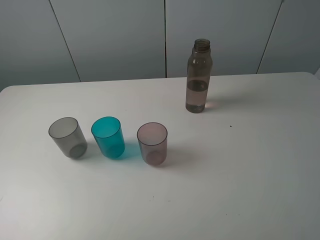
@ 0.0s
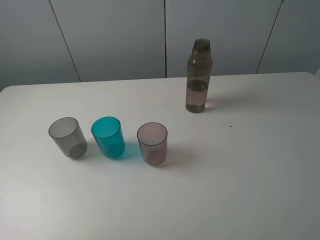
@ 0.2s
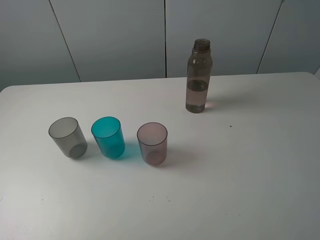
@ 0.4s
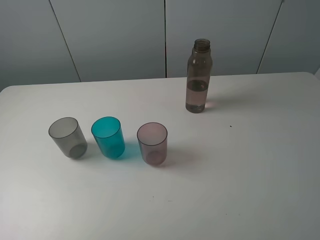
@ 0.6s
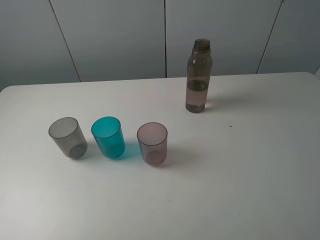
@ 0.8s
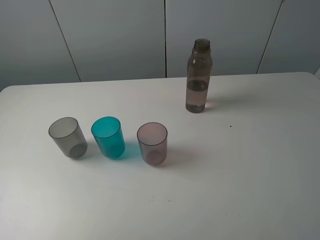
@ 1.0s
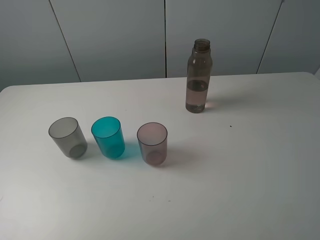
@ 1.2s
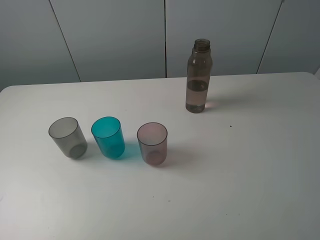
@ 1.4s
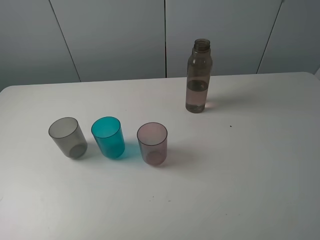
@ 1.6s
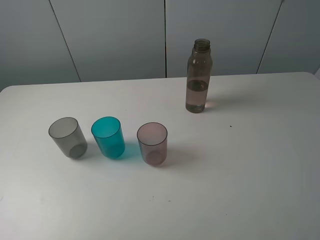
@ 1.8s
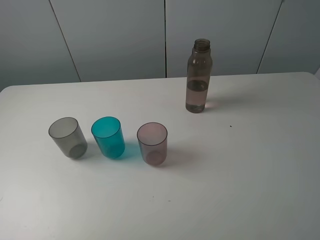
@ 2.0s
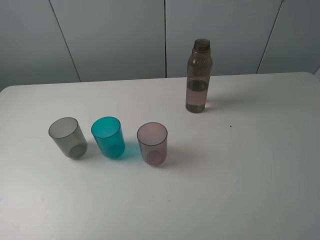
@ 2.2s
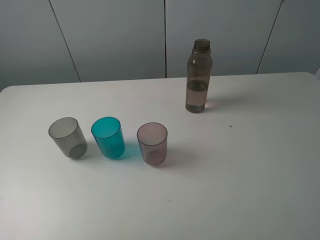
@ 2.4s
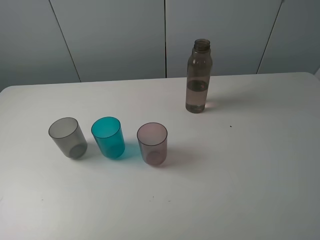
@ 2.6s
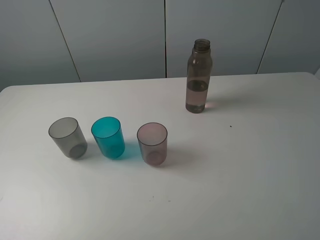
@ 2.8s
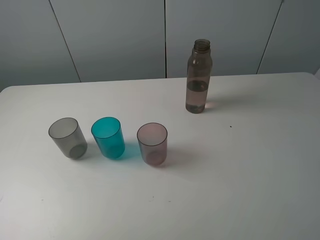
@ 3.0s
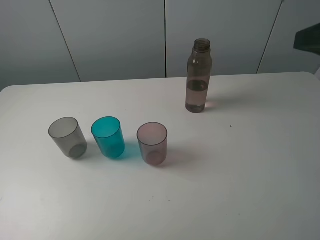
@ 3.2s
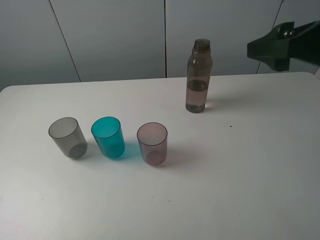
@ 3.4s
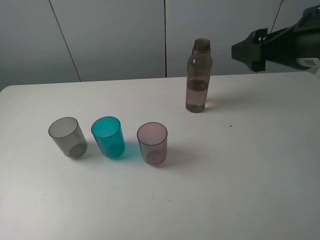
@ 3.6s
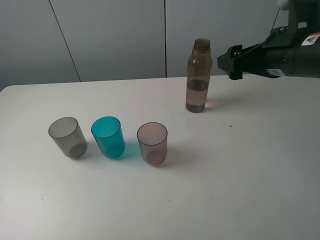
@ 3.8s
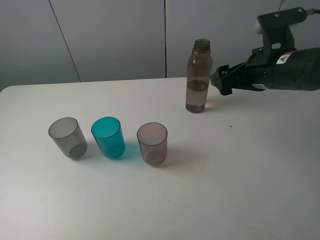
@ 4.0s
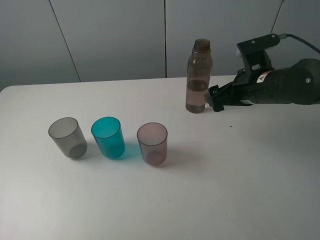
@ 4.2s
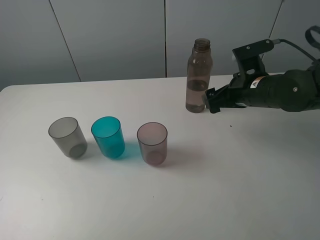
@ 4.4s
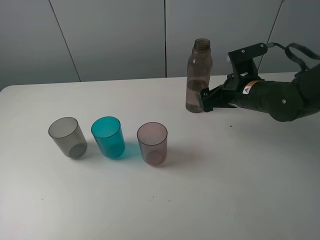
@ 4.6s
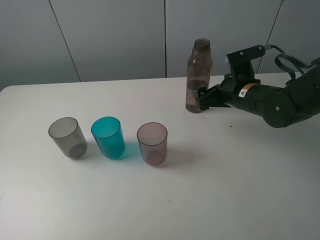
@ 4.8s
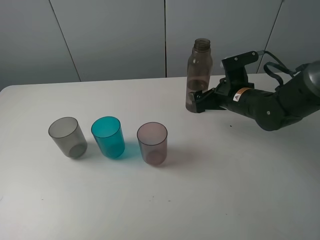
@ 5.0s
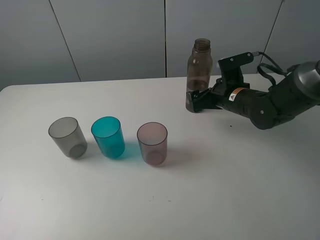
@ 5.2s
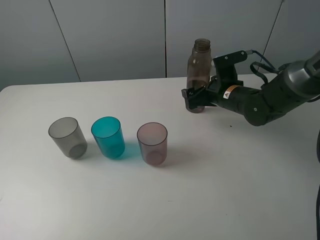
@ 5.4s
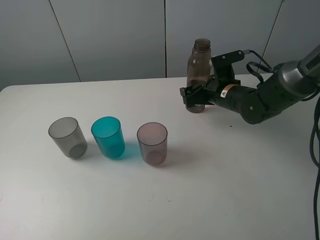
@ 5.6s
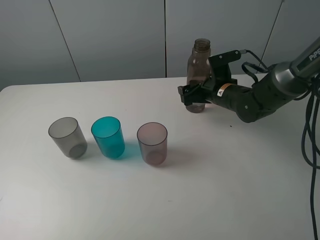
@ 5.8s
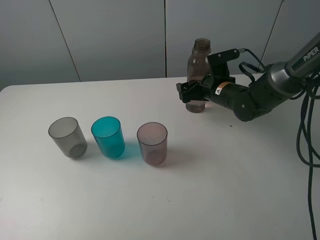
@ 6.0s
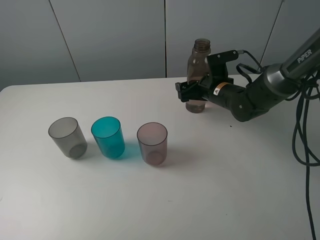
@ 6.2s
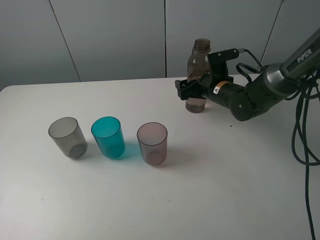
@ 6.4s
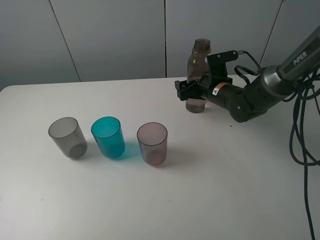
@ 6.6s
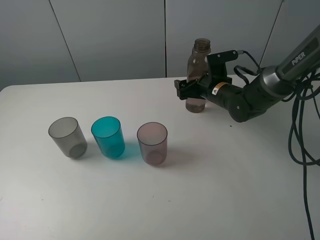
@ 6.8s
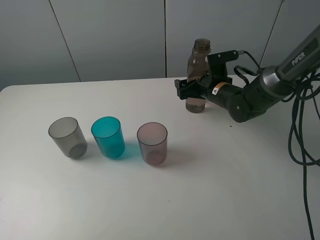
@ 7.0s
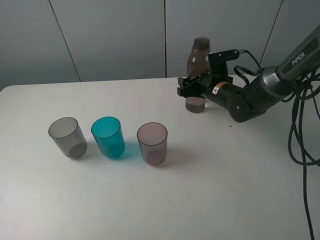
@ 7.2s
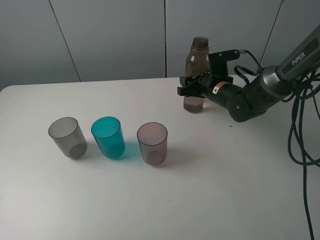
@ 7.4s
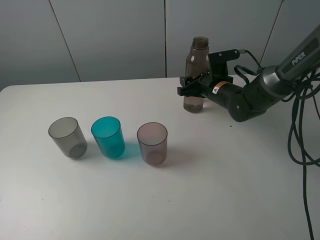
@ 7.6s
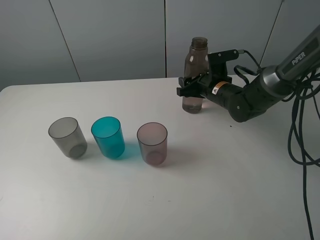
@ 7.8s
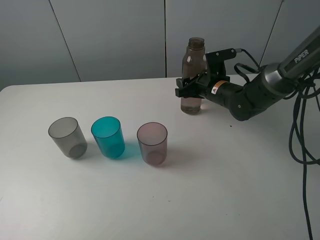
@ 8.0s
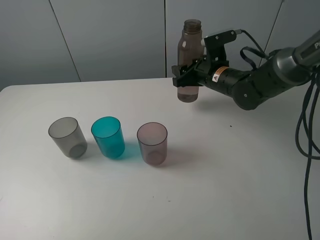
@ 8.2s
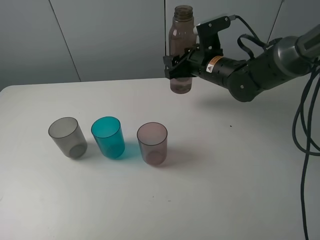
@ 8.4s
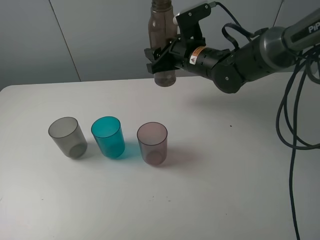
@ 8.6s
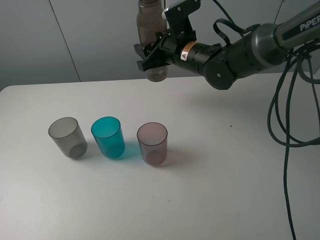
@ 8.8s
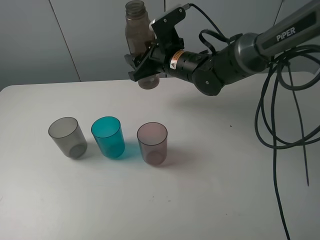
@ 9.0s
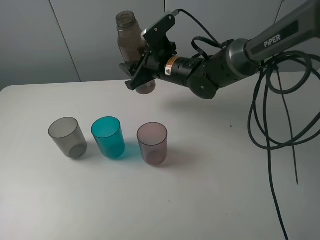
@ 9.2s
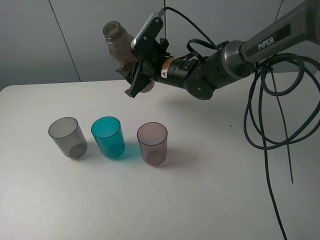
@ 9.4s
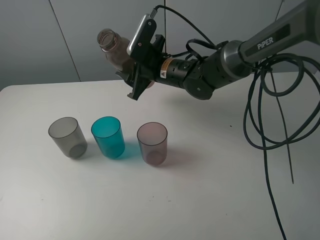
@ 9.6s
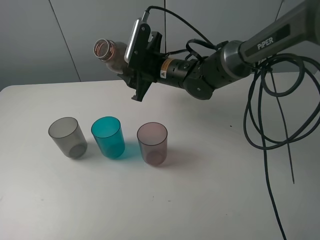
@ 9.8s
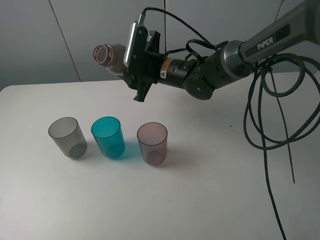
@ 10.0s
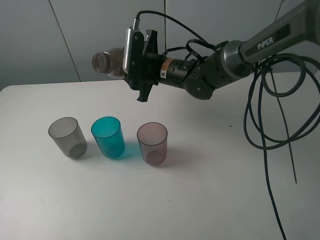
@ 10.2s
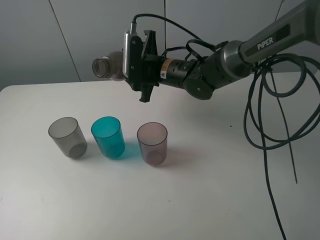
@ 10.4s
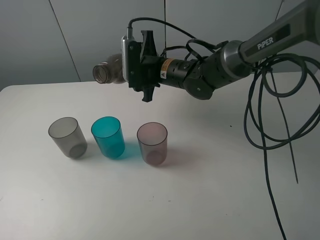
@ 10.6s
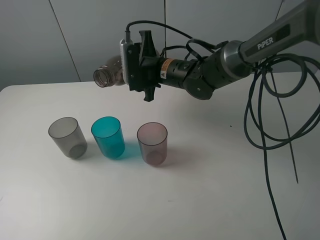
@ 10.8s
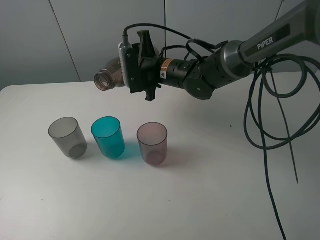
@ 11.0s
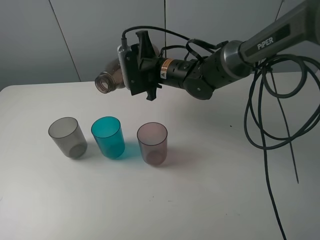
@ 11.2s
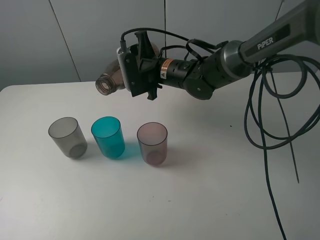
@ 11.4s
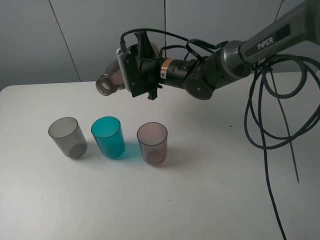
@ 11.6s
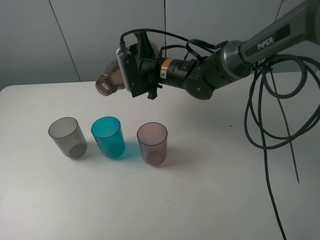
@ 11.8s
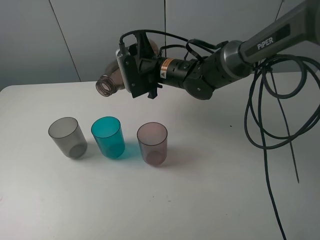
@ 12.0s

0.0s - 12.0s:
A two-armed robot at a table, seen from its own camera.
Task of the whole recording: pick up the bottle filled with water and pour water into the middle cup of the three cups.
Step, 0.0s - 7.6s: Grasp the brown bottle with the right gripper.
0.0s - 1.6s: Both grippers stay put.
3.0s - 4.4s: The right gripper goes approximately 25 cm downward, forward and to the left.
4.4s - 6.0s: The right gripper goes about 10 cm forward and downward.
6.0s - 7.6s: The right gripper closes up.
7.6s - 9.0s: The right gripper moves to the left and upward, roughly 15 cm.

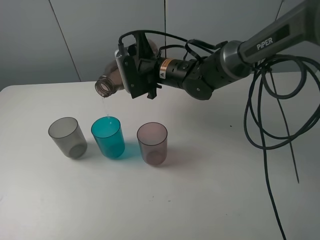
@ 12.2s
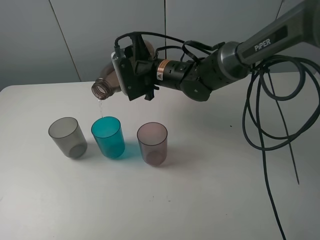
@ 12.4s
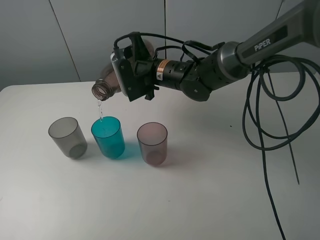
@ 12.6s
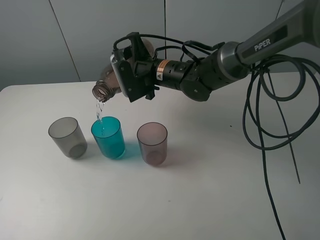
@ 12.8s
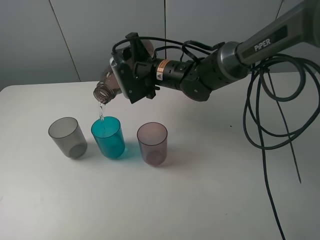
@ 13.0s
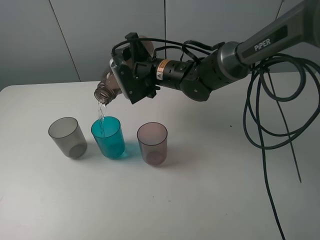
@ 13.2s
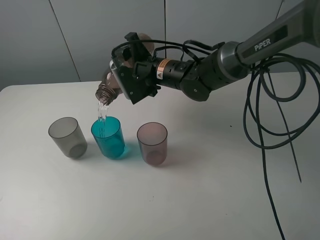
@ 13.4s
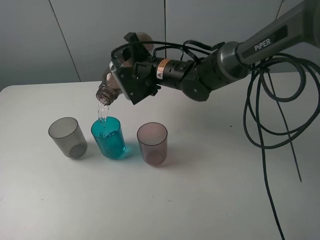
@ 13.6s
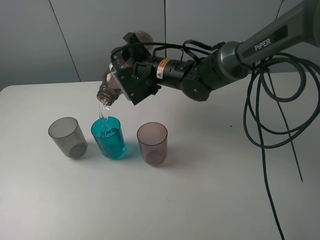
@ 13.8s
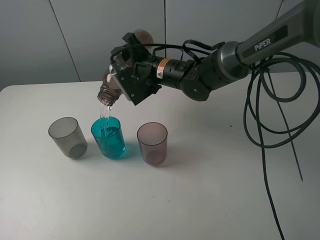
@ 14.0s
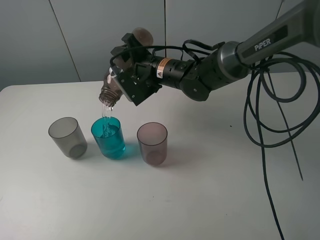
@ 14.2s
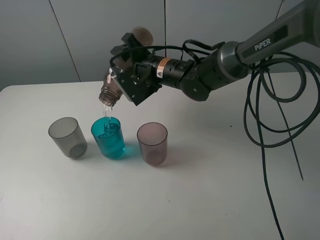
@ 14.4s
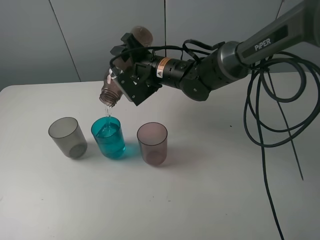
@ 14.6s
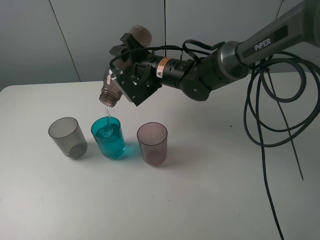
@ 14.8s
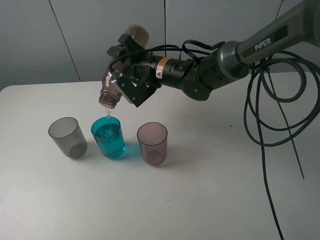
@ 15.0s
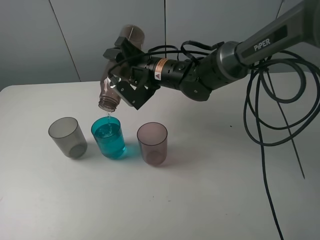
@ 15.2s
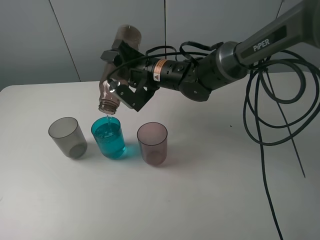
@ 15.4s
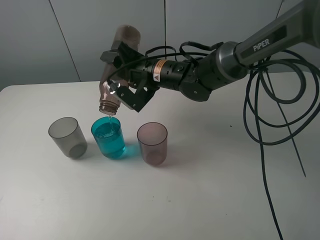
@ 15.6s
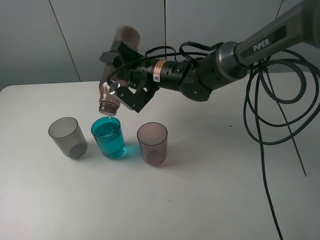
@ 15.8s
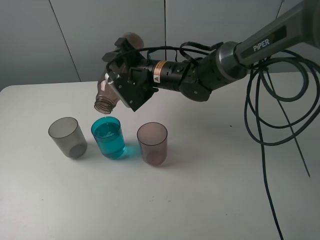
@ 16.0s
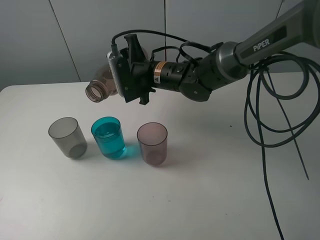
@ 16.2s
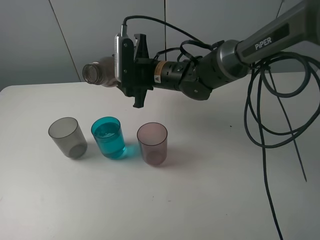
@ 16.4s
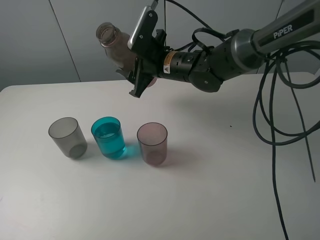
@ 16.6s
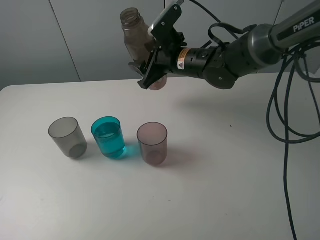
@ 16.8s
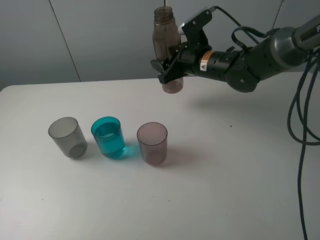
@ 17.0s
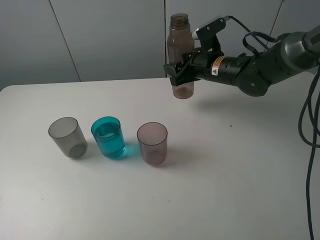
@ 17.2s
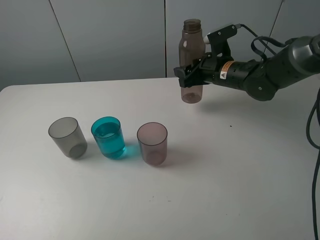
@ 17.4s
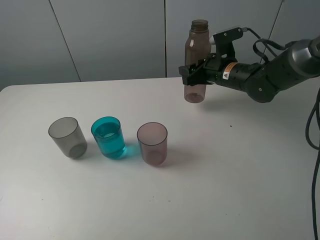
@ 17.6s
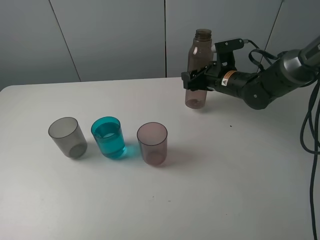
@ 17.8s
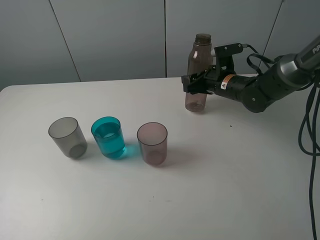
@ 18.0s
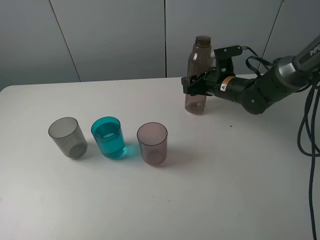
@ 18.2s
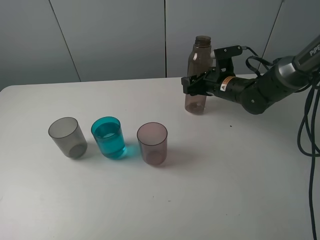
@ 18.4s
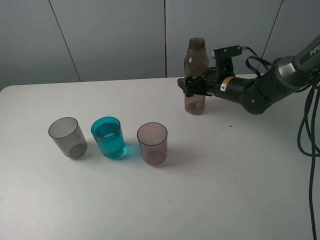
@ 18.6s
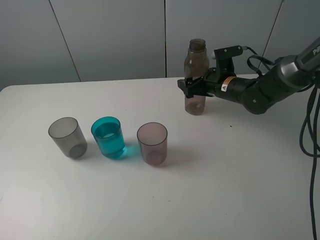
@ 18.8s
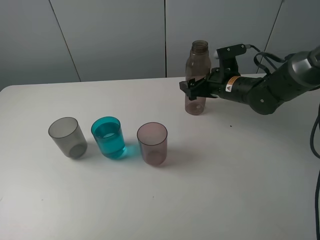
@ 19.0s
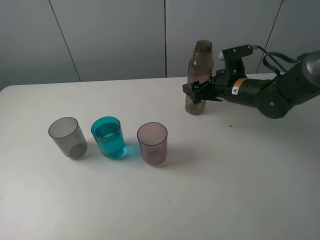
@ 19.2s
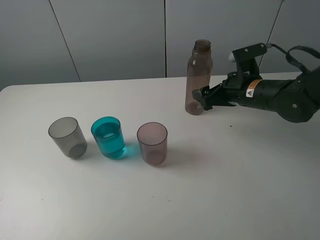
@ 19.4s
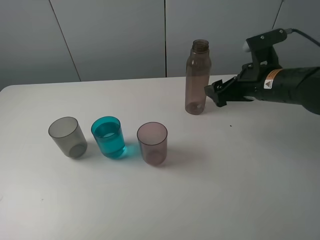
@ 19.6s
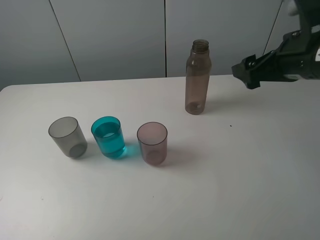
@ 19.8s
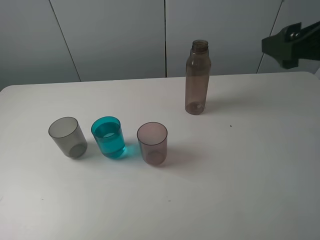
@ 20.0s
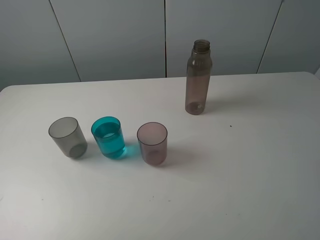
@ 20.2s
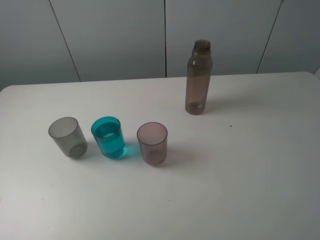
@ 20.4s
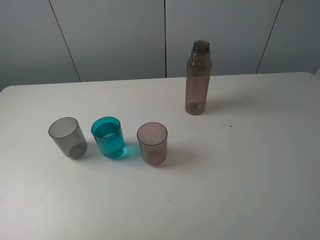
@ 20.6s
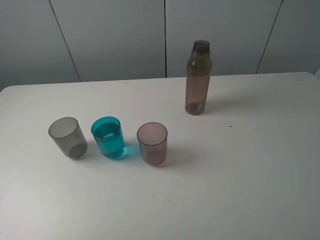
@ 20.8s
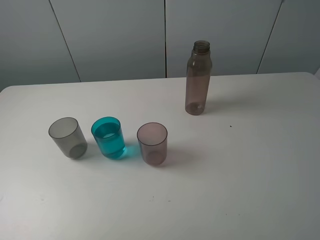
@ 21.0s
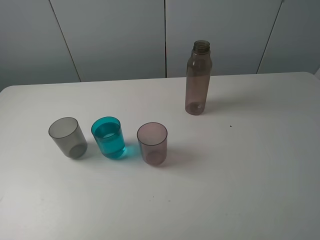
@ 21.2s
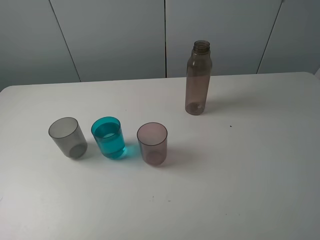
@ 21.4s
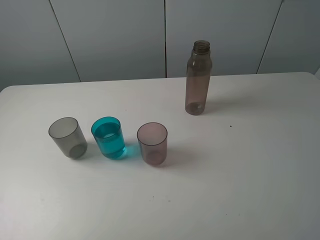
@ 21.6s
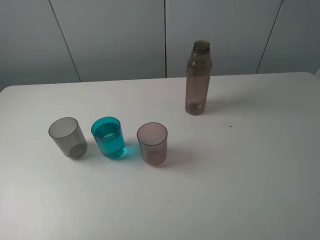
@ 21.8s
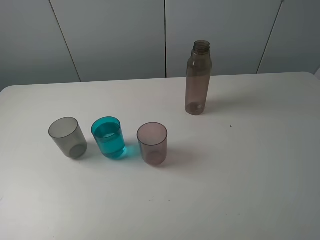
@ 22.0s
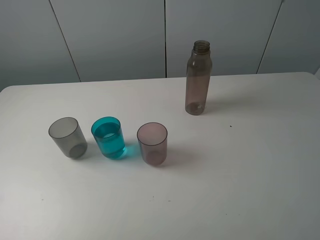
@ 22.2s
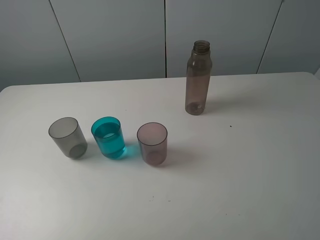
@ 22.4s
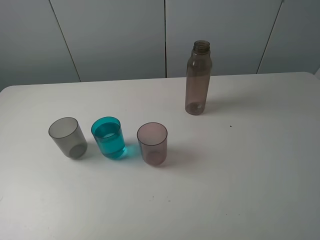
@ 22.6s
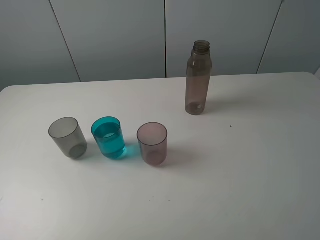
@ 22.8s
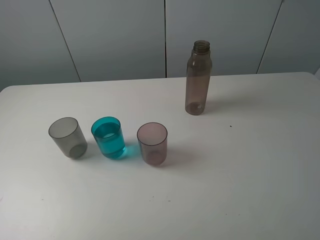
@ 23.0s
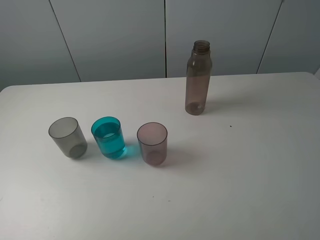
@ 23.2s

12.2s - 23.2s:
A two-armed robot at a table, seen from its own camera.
Task of the whole recording: pick up the bottle filled with water and pour water into the middle cup of the three cups.
Step, 12.2s - 16.4s: Pour water from brown bottle to blue cup with the right gripper.
Step, 16.6s - 20.4s: Place the brown bottle with the right gripper.
12.2s - 13.8s: The grippers move only a little.
13.8s - 15.4s: The grippers move only a little.
15.4s - 17.0s: The right gripper shifts some 10 cm to the right.
17.0s - 18.4s: The right gripper travels downward and to the right by approximately 10 cm.
18.4s - 20.0s: The right gripper goes roughly 30 cm upward and backward, and opens.
20.0s - 21.6s: The right gripper heads backward, covering approximately 15 cm.
21.6s - 23.2s: Neither gripper changes place.
